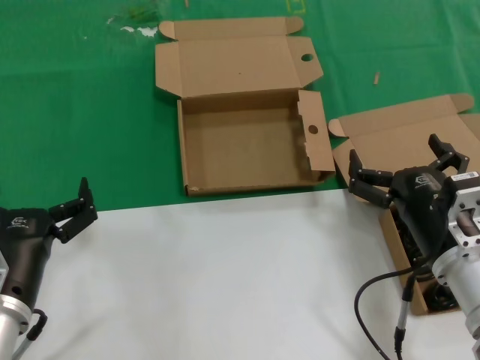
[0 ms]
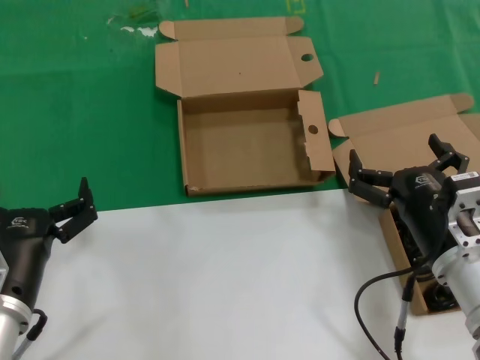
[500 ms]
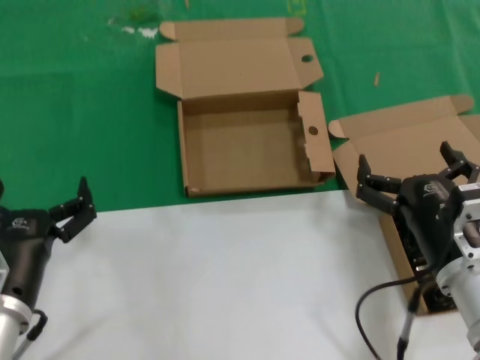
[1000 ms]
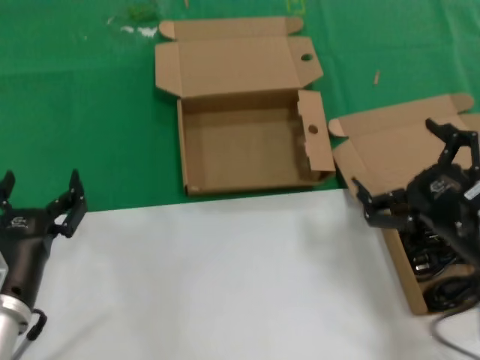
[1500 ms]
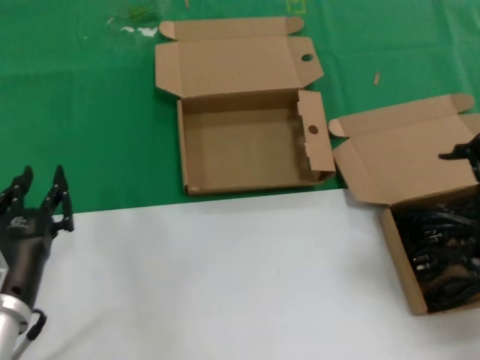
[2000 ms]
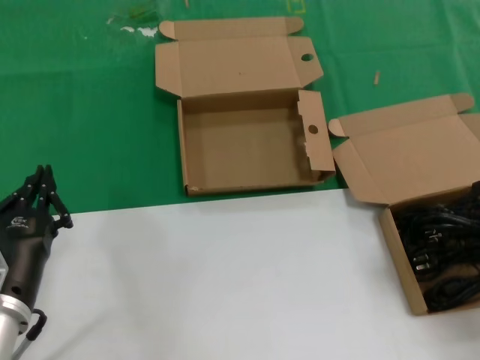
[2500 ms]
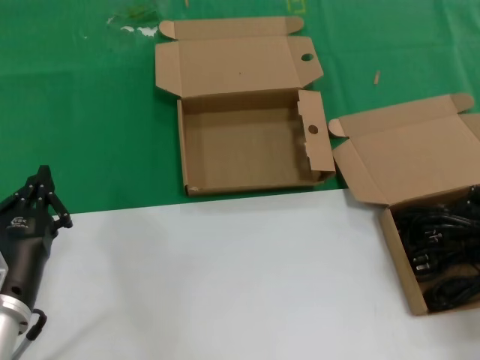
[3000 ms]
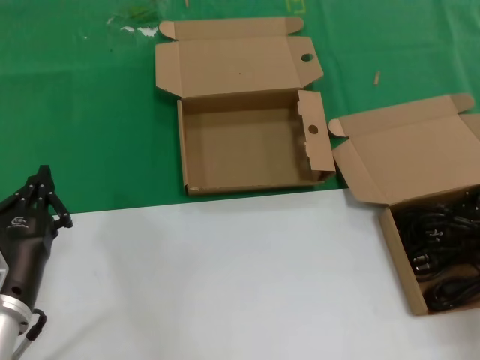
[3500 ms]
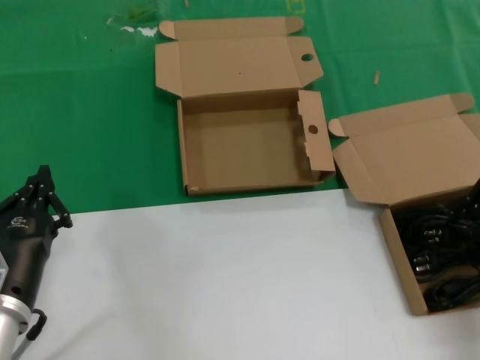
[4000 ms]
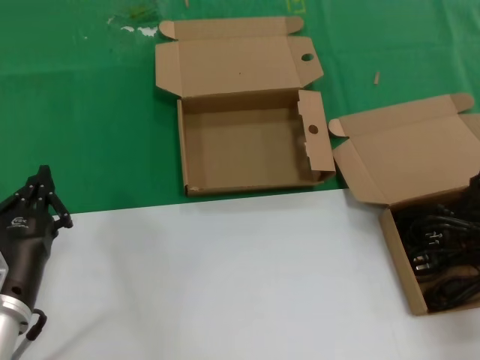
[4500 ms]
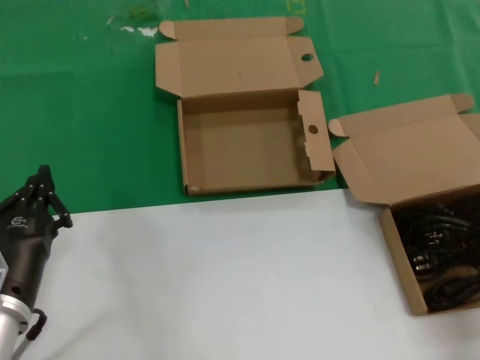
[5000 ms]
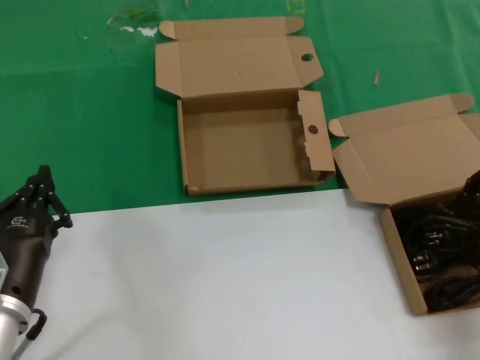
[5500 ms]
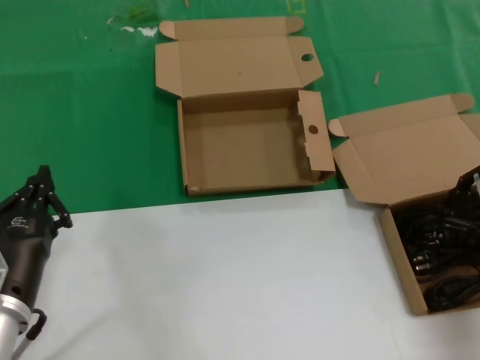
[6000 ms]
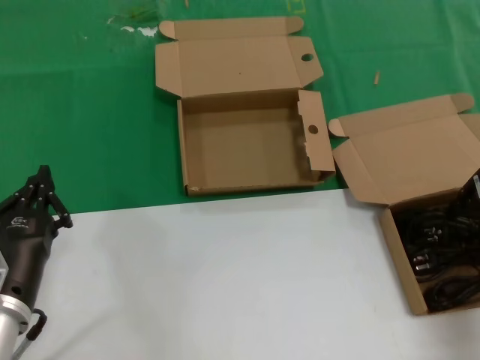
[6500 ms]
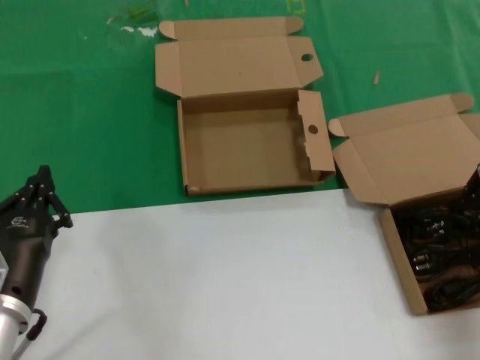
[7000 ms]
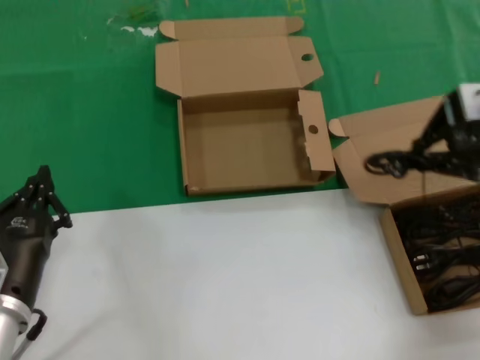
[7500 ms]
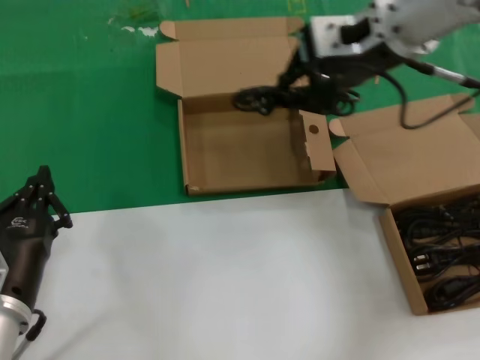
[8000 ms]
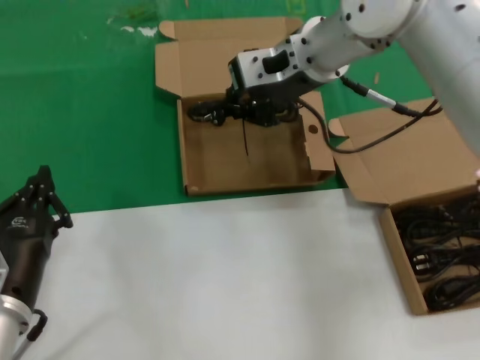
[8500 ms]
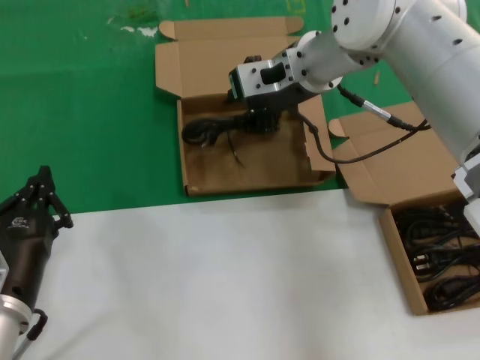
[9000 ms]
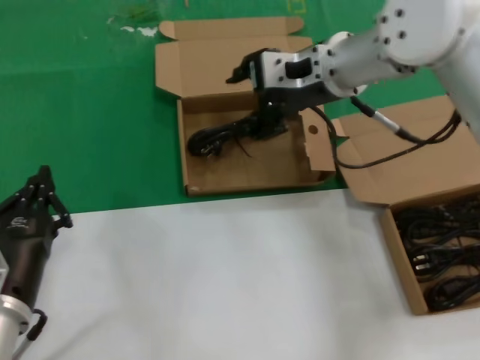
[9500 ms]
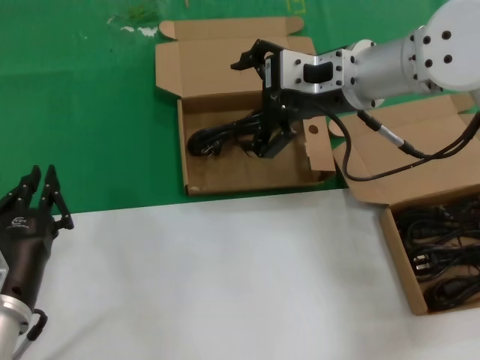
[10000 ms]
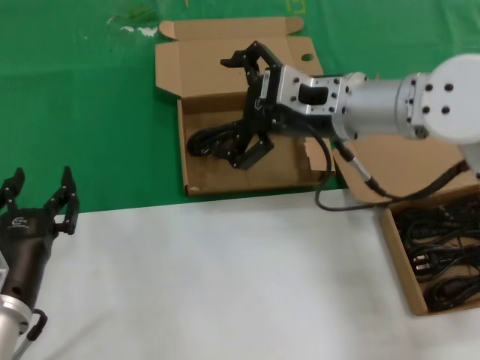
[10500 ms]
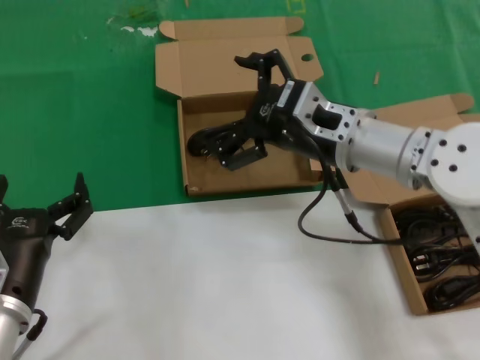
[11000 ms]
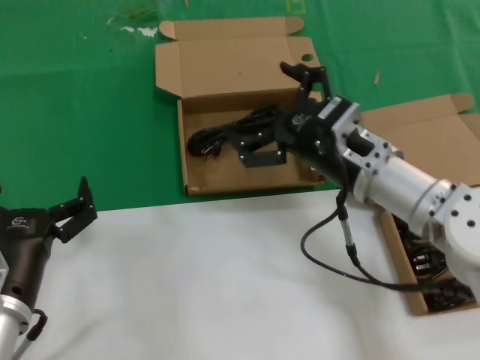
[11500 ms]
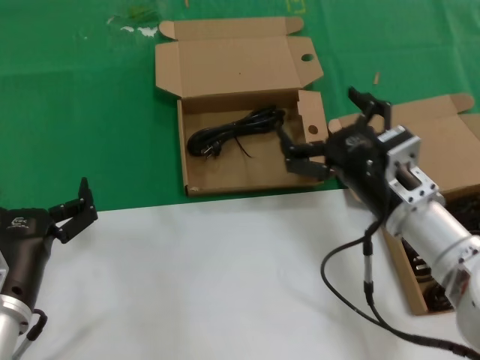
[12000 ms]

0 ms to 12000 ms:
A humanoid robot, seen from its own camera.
Task of the whole recording: take the parts from the box containing them and put them into an empty box.
Step, 0 ms to 3500 ms: Grasp the data cable.
Step, 4000 ms to 9000 ms: Place the data cable in the another box.
0 ms to 2000 ms: The right hand moves upward and to the right, roughly 20 cm.
2000 ms to 4000 ms: The right hand is displaced forward by about 10 cm.
6000 ms to 8000 ms: The right hand shifts approximately 25 cm to the left and upward.
8000 ms to 10000 ms: The right hand travels downward by about 10 cm.
10000 ms to 12000 ms: The right hand heads downward and backward, covering roughly 20 cm.

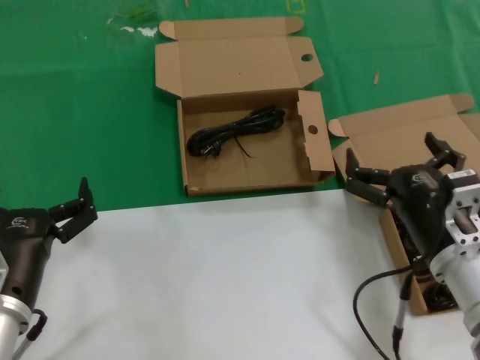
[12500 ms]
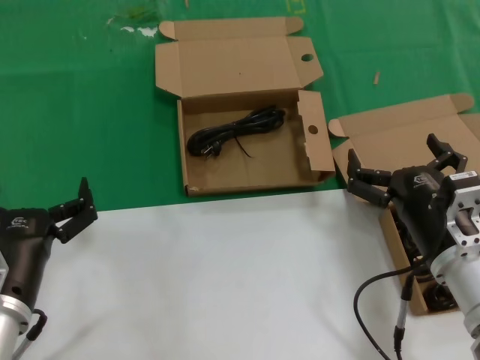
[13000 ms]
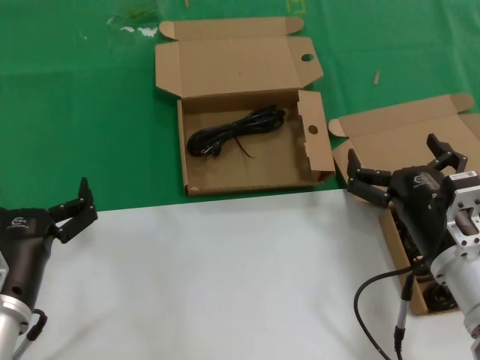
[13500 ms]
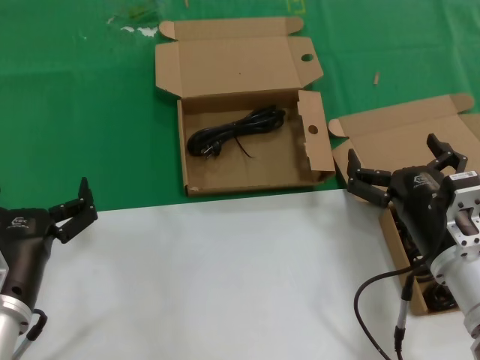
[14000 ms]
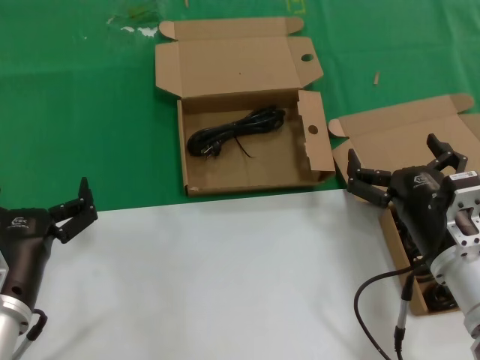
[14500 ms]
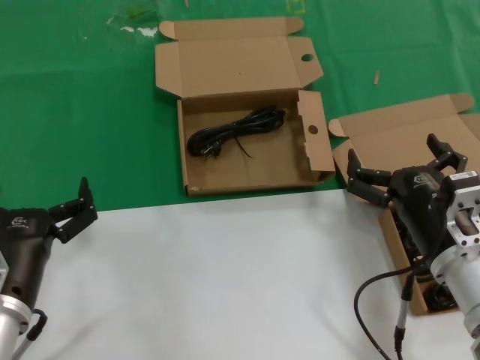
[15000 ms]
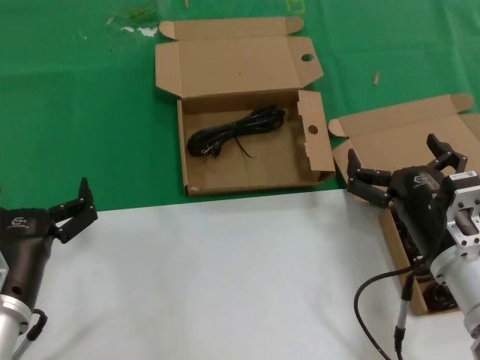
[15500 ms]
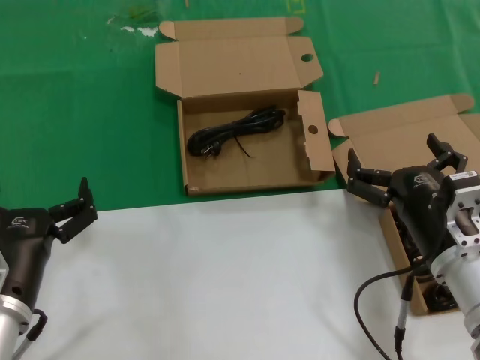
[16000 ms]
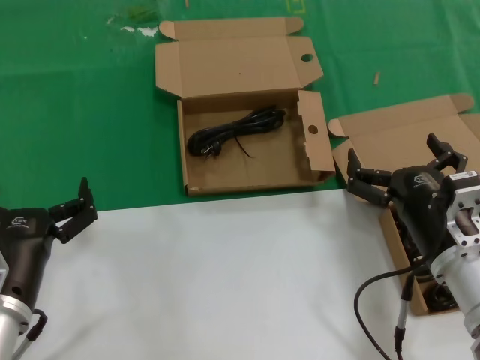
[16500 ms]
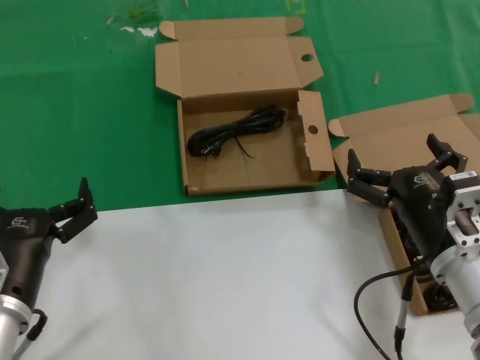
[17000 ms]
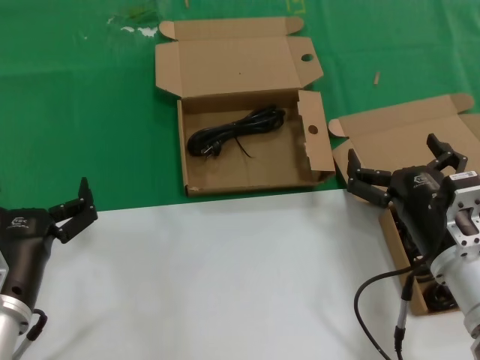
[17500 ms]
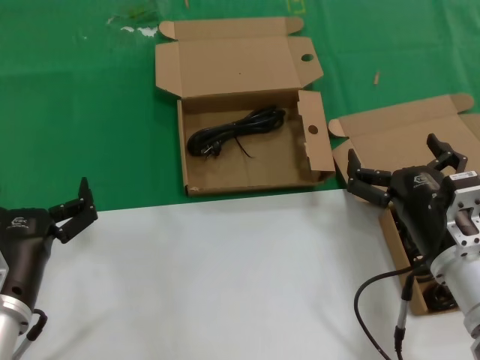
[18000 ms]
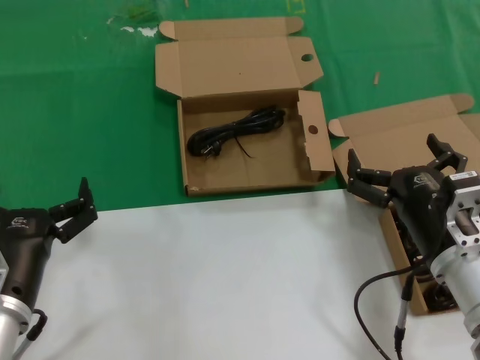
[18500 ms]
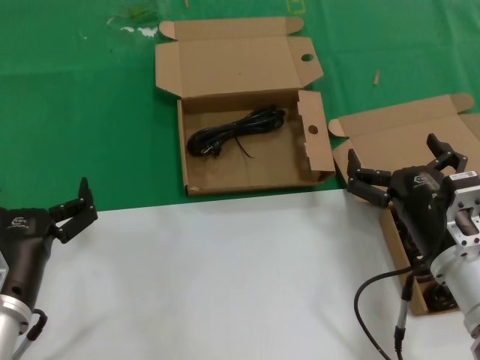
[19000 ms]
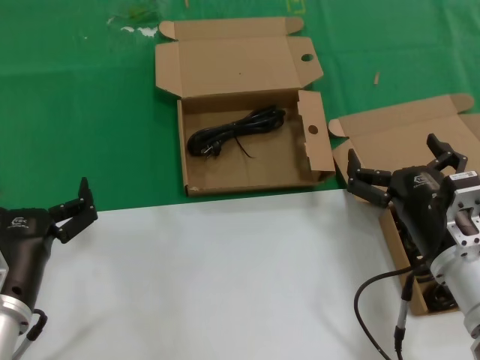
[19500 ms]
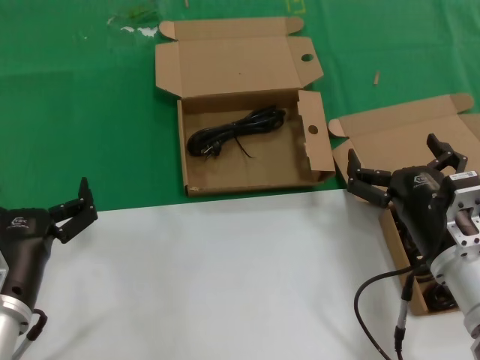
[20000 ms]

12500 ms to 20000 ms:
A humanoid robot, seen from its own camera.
Task of the whole recording: take the parts from the box containing them and put them into an empty box.
12500 ms to 20000 ms: Both hands stay about where they are.

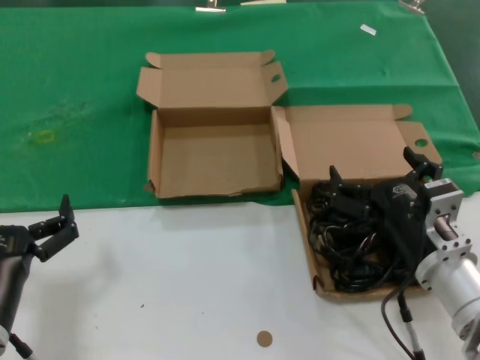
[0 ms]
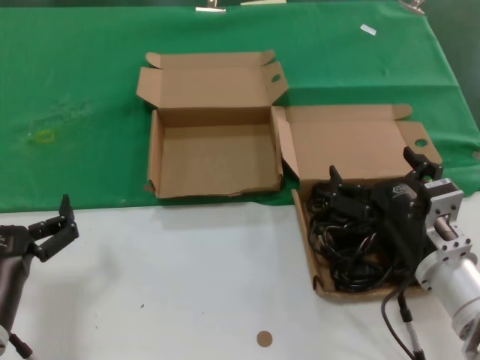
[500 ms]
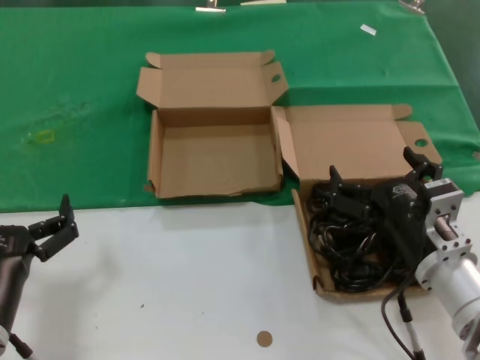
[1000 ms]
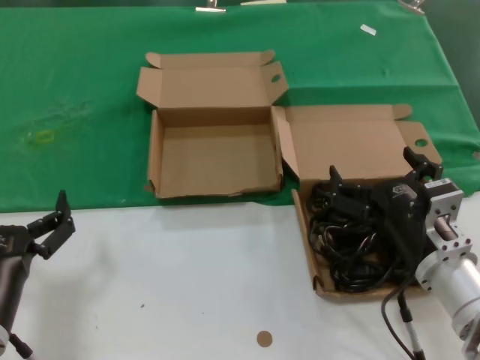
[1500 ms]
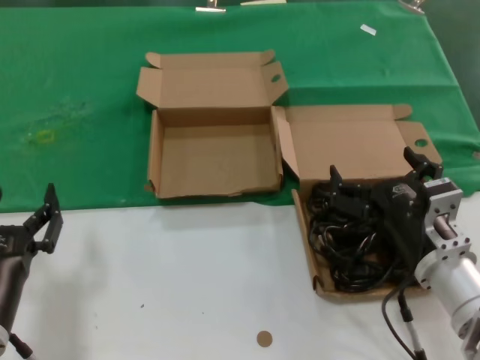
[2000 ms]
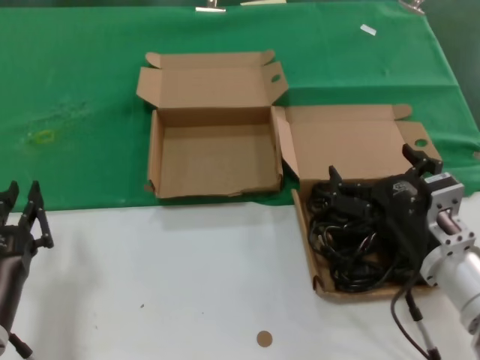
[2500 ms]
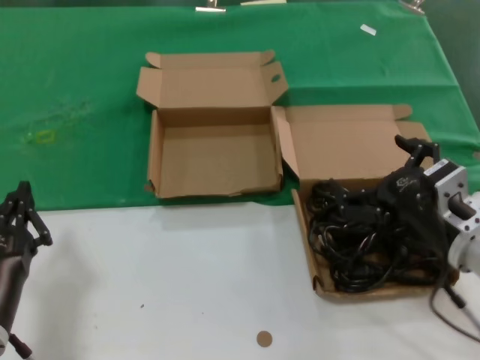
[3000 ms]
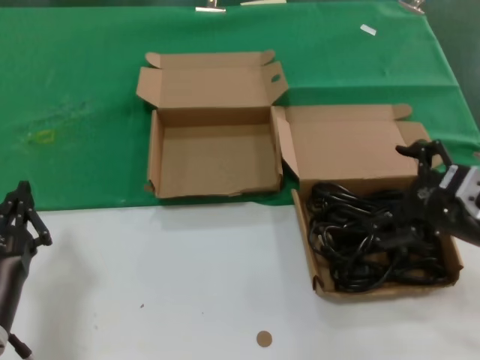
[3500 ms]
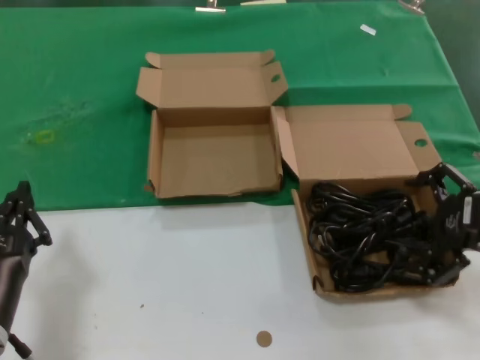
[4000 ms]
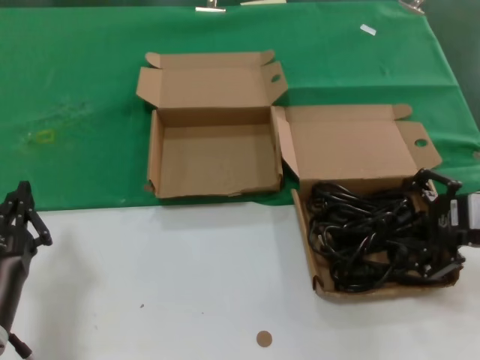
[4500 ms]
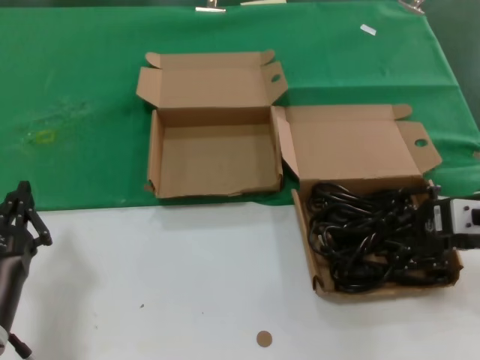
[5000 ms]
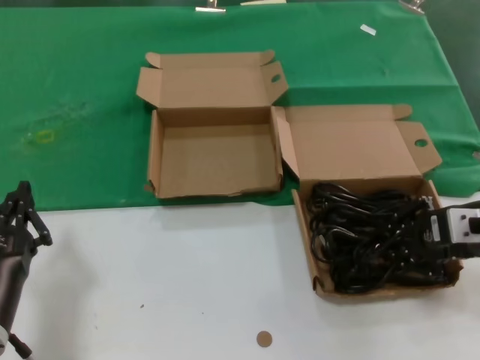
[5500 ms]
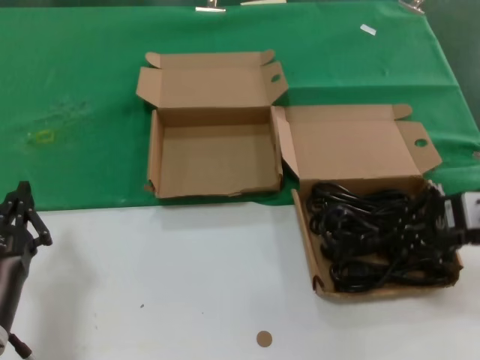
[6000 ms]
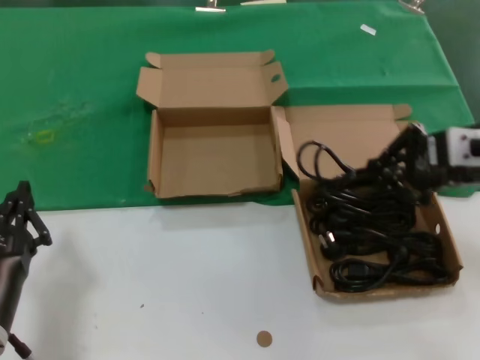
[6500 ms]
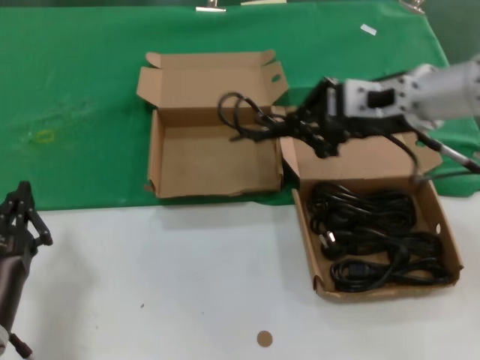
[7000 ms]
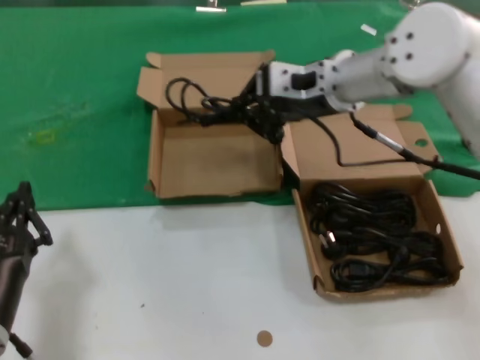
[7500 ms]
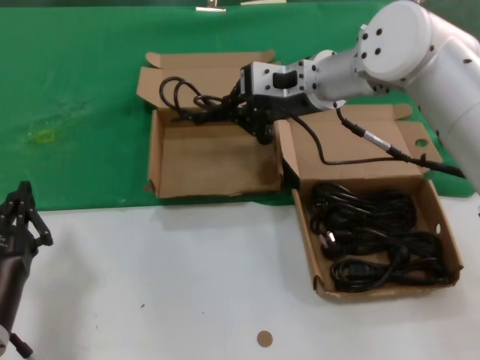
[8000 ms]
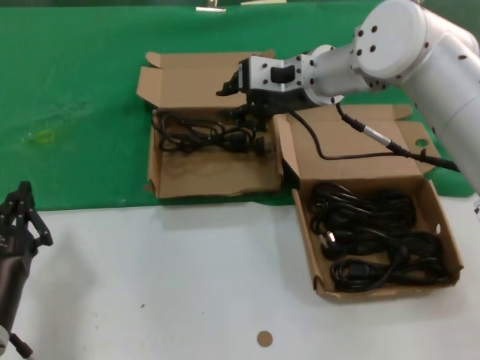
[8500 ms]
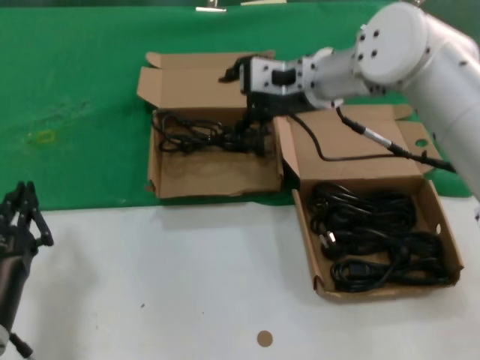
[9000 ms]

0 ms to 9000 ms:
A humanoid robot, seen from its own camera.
Task of the whole recording: take the parts from the box containing them and put them into an empty box.
Step, 0 ms to 5000 ms: Grasp the data cable.
Step, 5500 ms to 8000 ms: Place the data cable in the another box.
0 ms to 2000 ms: The two hands keep their place.
2000 ms to 4500 ms: The right hand moves to the right and upward, about 15 cm.
4500 ms to 7000 ms: The right hand is displaced to the left, upward and forward by about 20 cm.
7000 ms to 9000 ms: The right hand goes roughly 15 cm to the left and forward.
